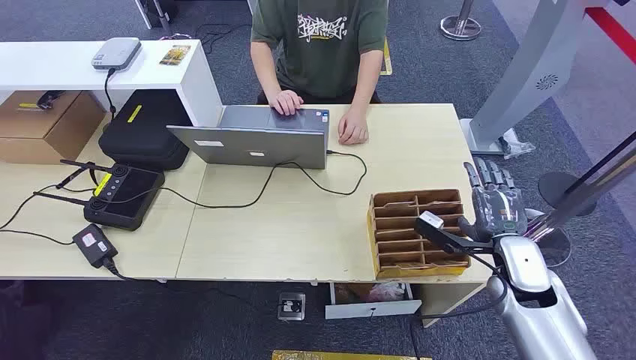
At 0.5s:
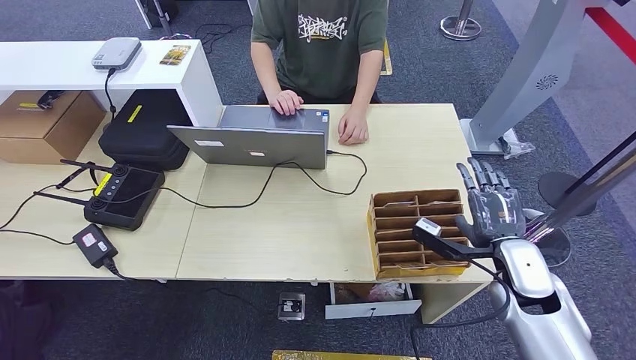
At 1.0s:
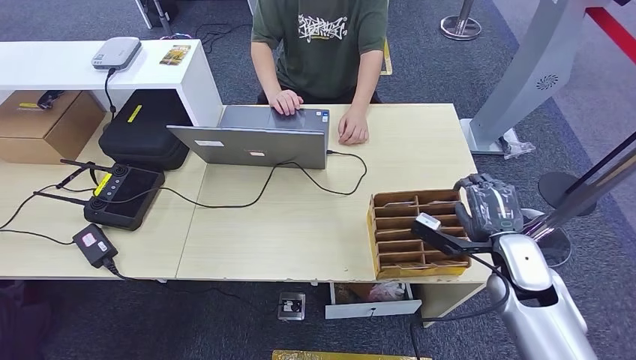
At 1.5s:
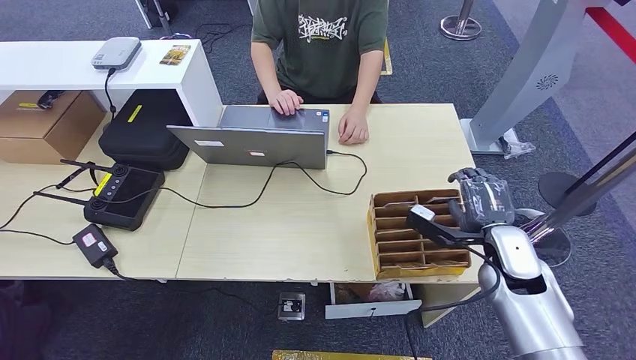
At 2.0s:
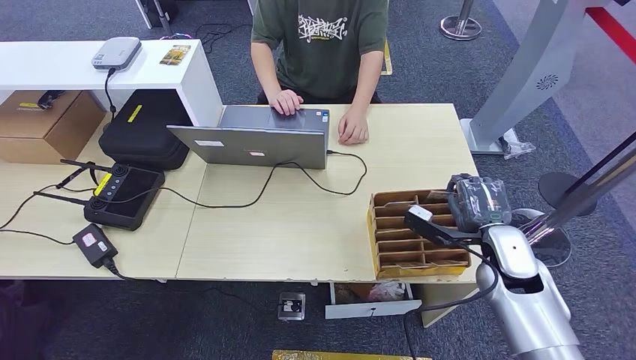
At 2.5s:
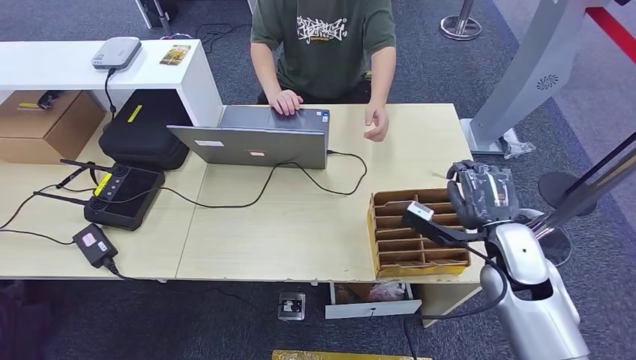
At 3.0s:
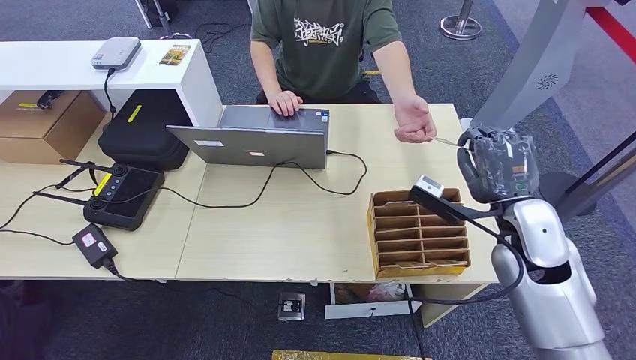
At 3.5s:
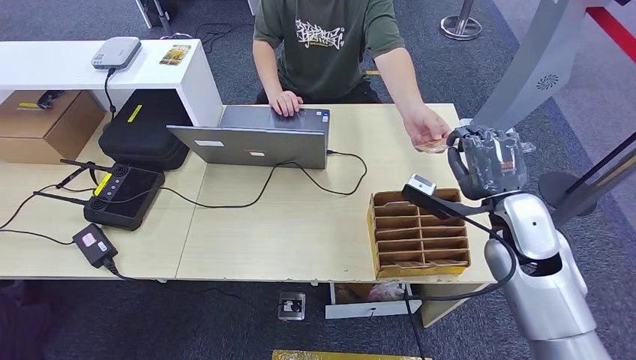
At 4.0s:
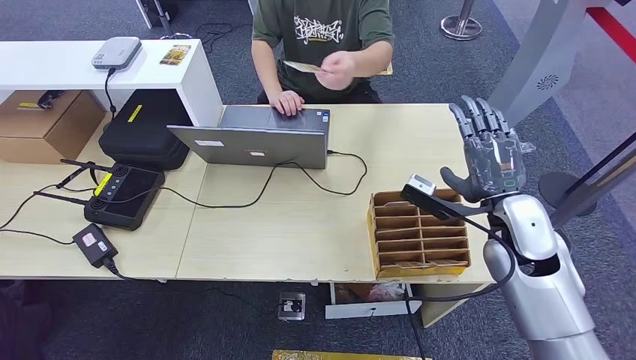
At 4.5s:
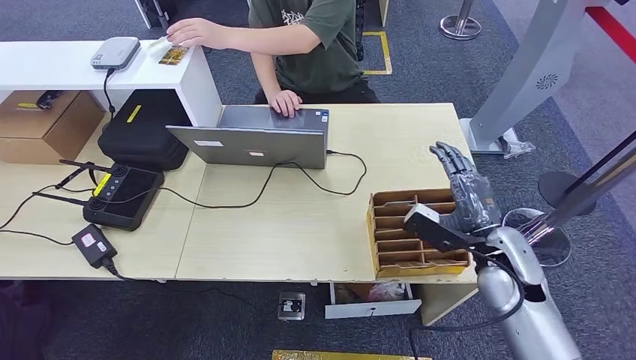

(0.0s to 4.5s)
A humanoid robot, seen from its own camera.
Step, 0.0s - 2.5s: Pick up the key card from the card box.
Step, 3.0s - 4.5s: Hand the key card to the target.
2.0s - 4.5s: The right hand moves approximately 10 cm upward and comes back.

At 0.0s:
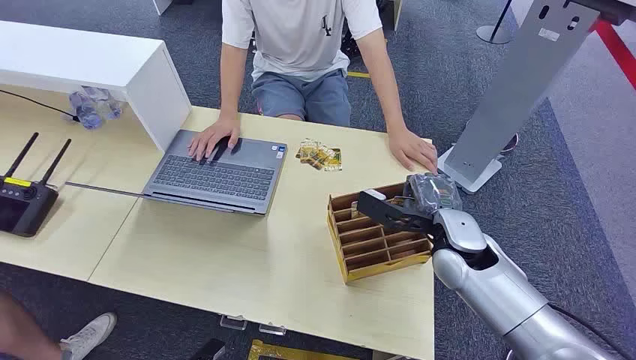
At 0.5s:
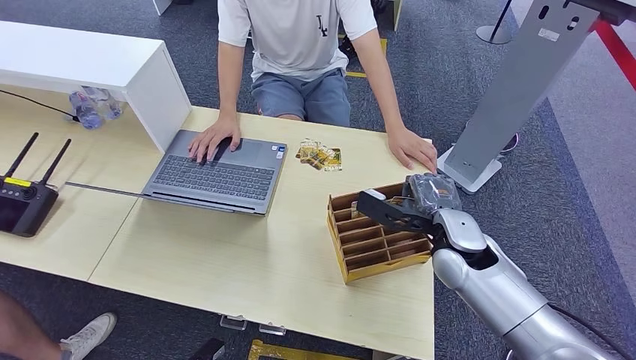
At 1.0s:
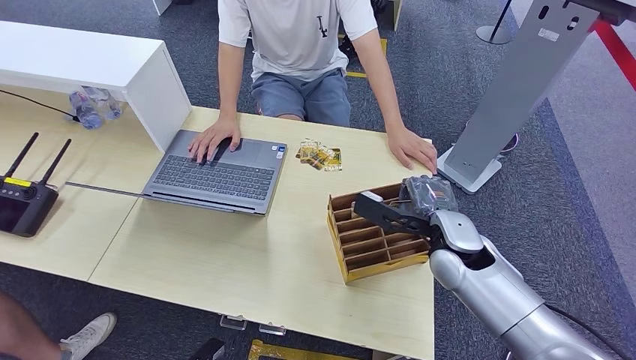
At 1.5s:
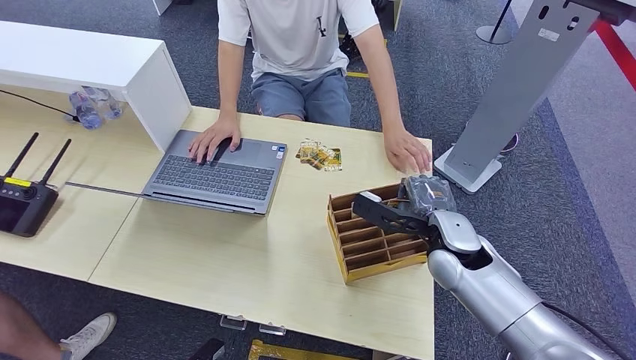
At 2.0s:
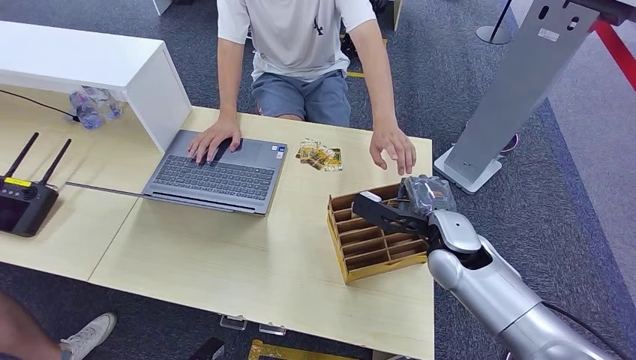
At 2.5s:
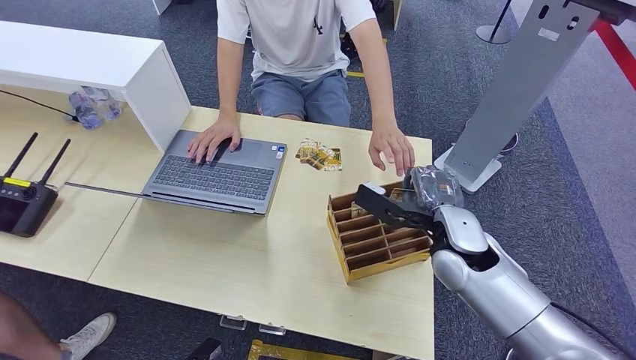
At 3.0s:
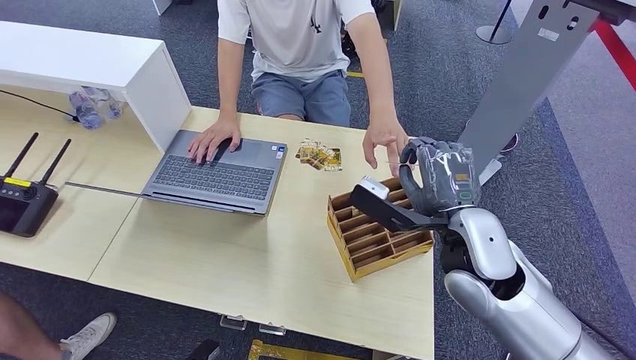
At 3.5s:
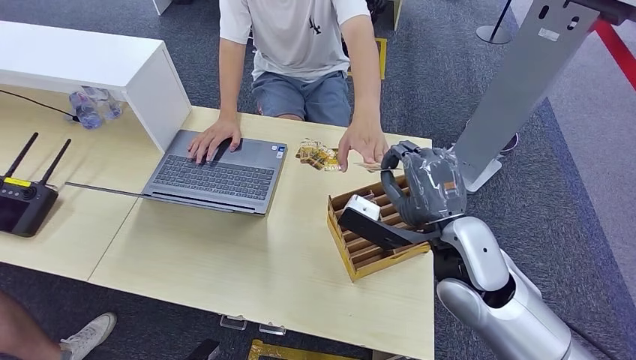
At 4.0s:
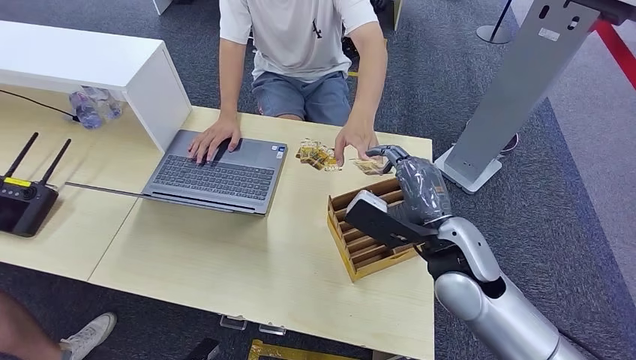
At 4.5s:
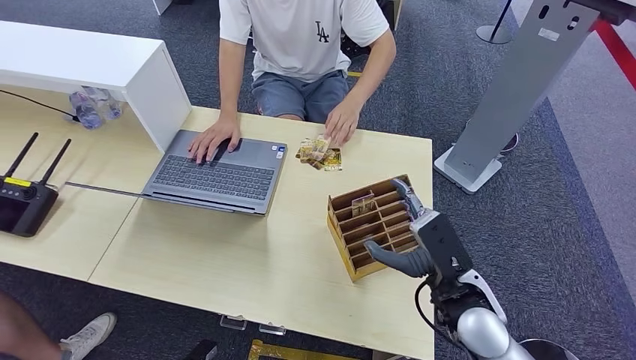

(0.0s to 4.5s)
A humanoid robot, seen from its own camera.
Step, 0.0s - 2.5s: Pick up the key card from the card box.
Step, 3.0s - 4.5s: Hand the key card to the target.
2.0s - 4.5s: The right hand heads backward, covering some 10 cm.

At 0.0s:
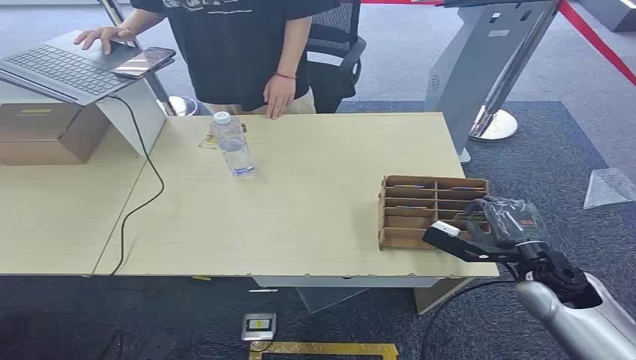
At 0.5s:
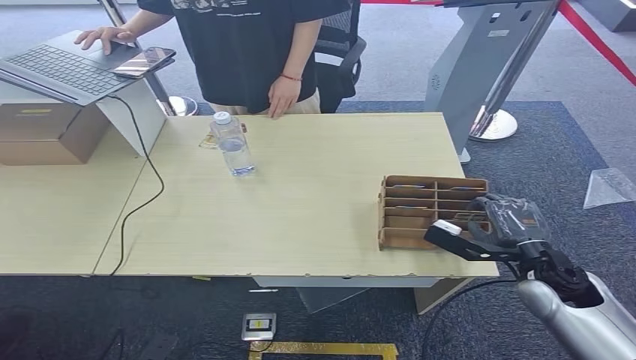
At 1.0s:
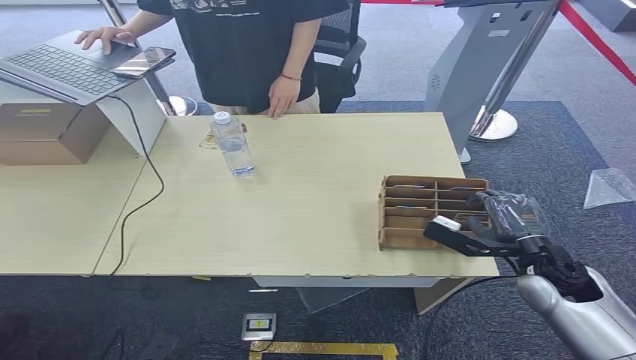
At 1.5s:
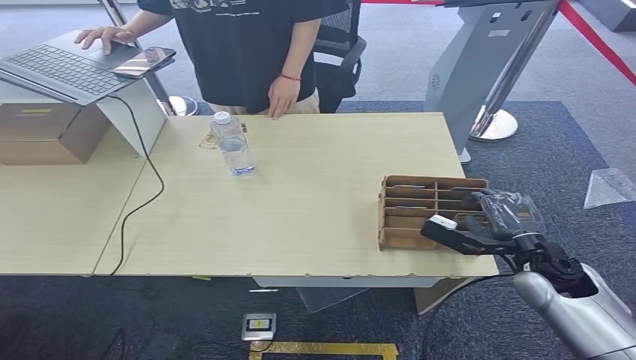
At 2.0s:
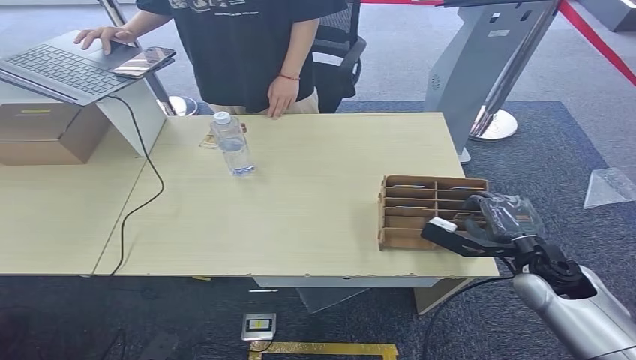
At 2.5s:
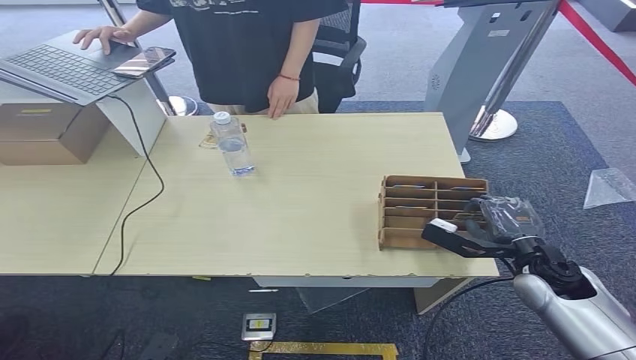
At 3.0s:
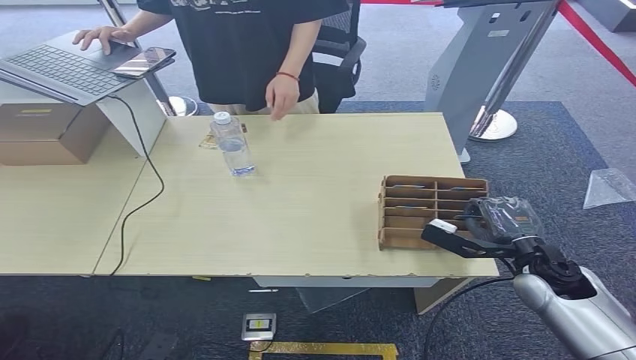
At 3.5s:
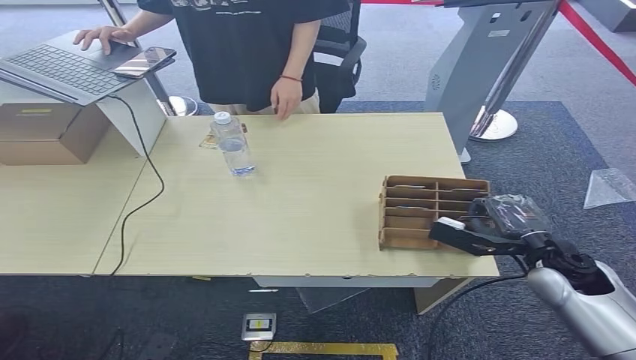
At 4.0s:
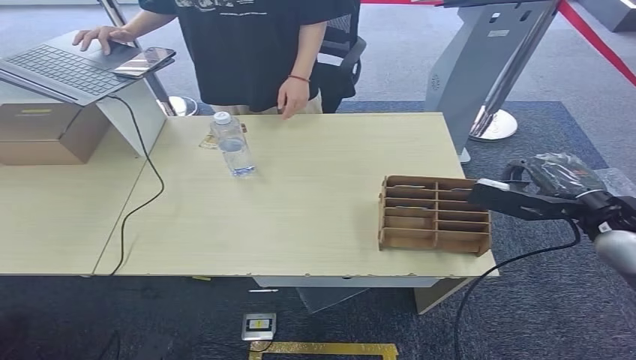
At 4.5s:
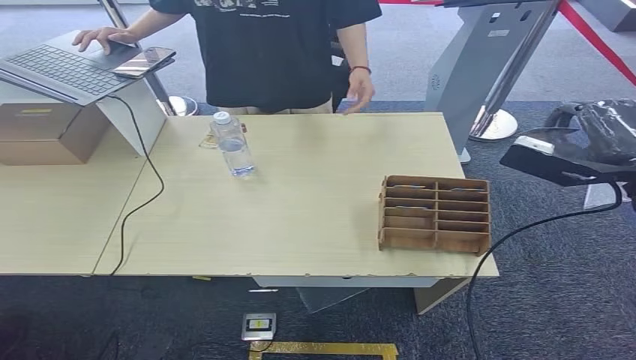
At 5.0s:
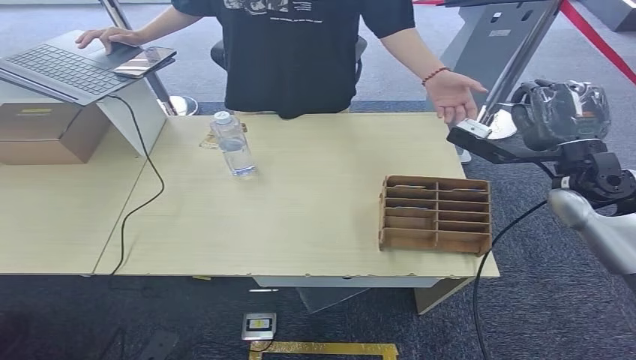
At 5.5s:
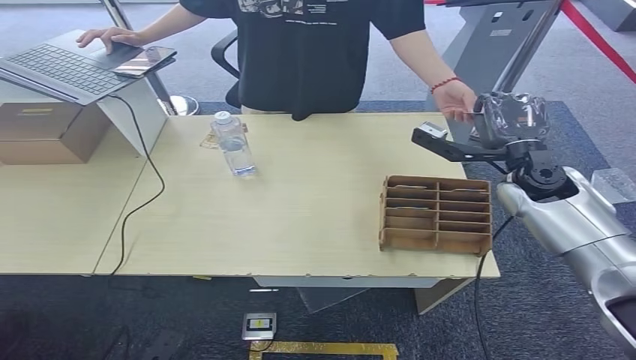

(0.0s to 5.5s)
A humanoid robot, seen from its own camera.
Step, 0.0s - 4.0s: Pick up the key card from the card box.
Step, 4.5s - 5.5s: Hand the key card to the target.
2.0s - 3.5s: There are only small adjustments of the hands.
3.5s - 5.5s: The right hand shifts about 15 cm forward and upward.
